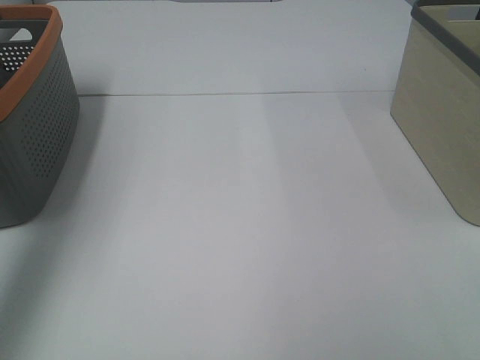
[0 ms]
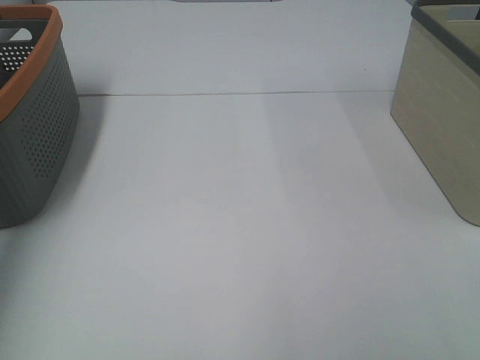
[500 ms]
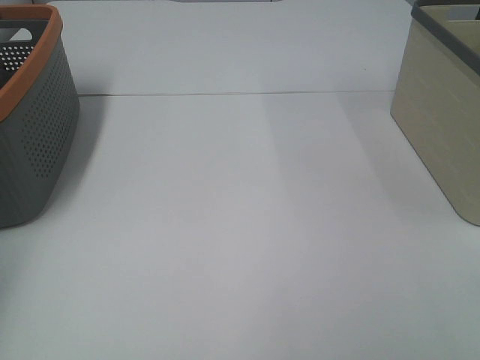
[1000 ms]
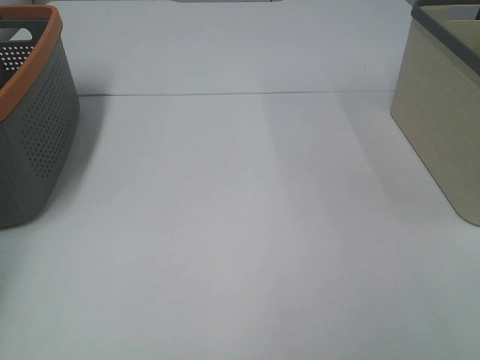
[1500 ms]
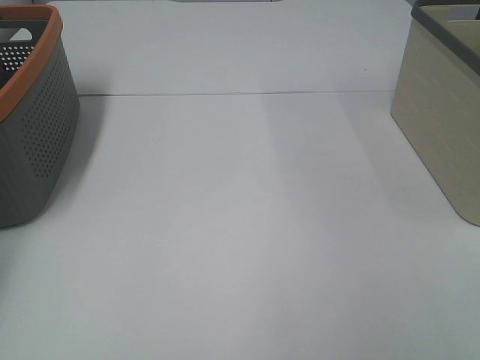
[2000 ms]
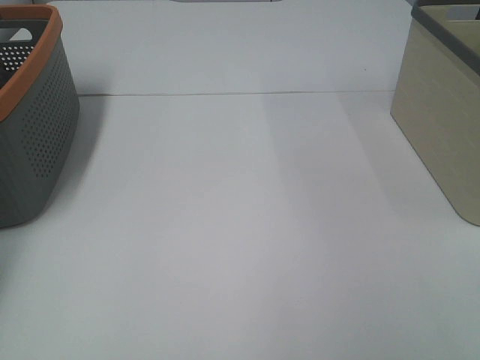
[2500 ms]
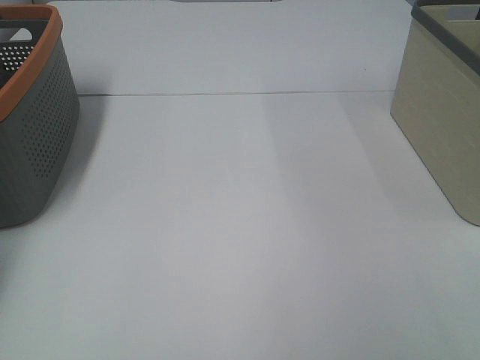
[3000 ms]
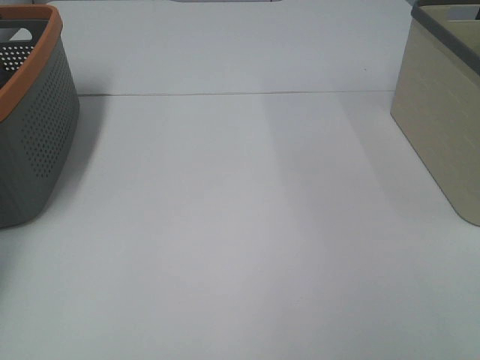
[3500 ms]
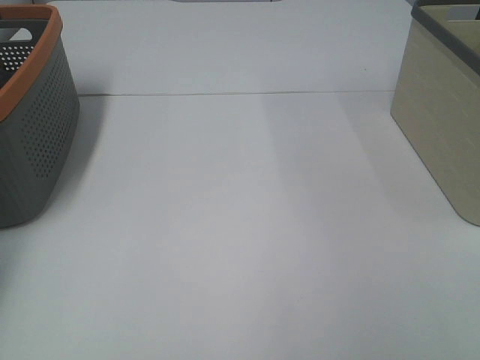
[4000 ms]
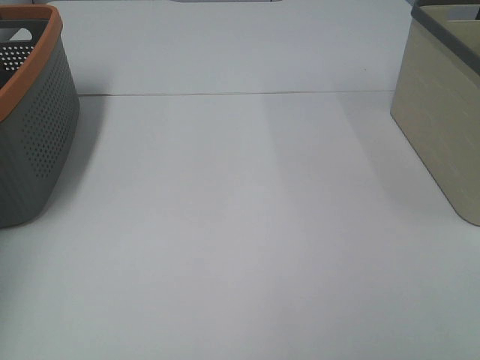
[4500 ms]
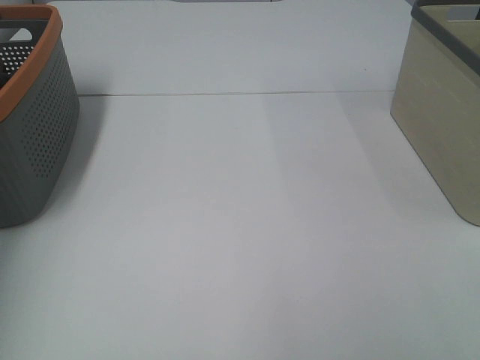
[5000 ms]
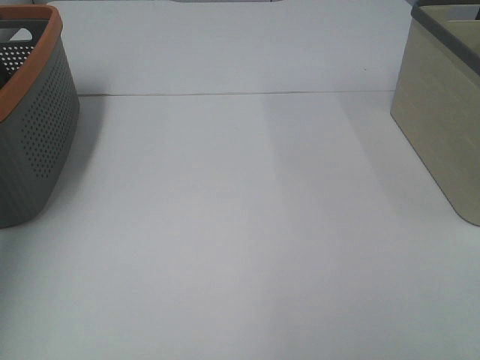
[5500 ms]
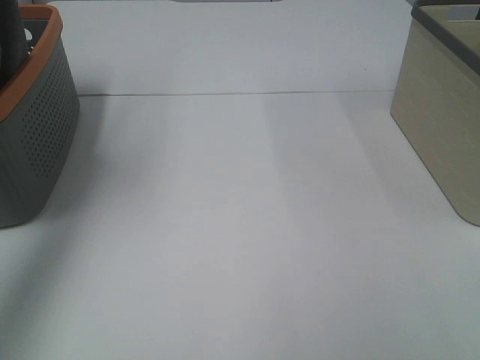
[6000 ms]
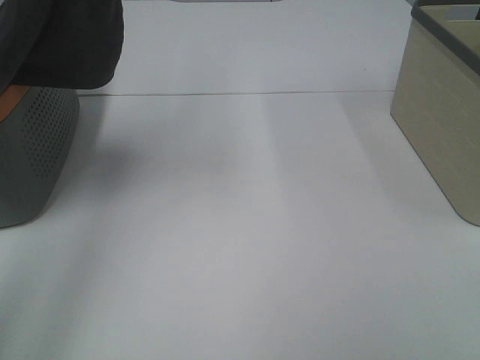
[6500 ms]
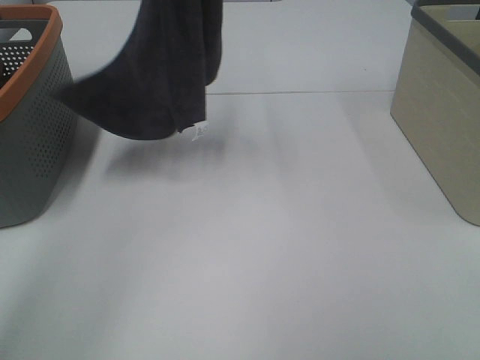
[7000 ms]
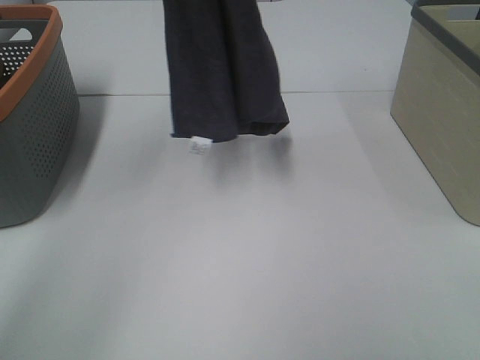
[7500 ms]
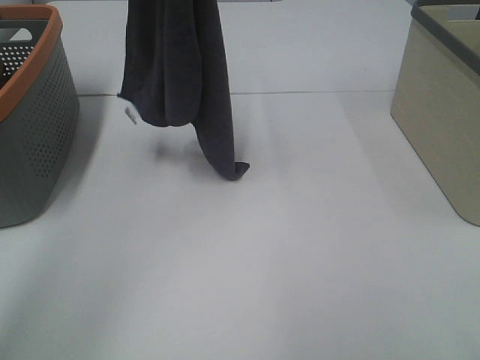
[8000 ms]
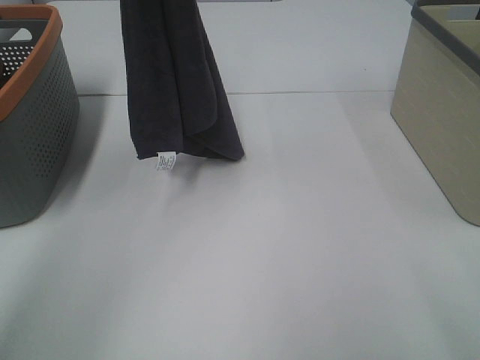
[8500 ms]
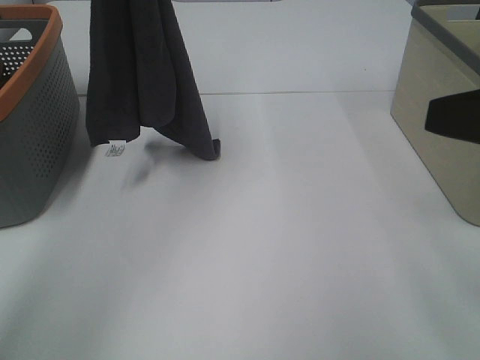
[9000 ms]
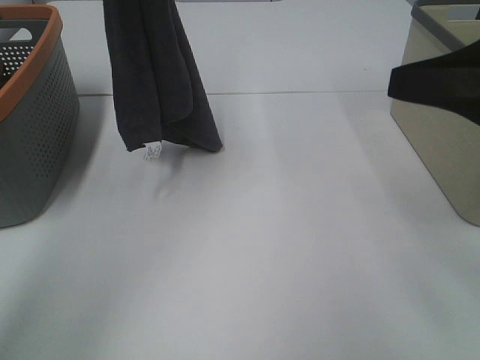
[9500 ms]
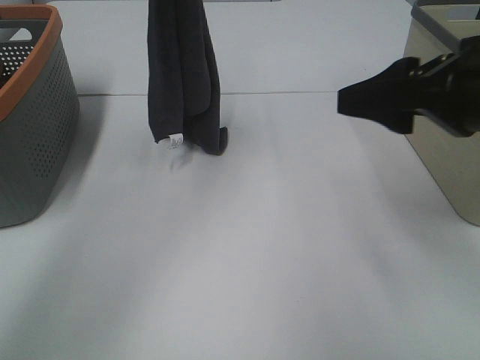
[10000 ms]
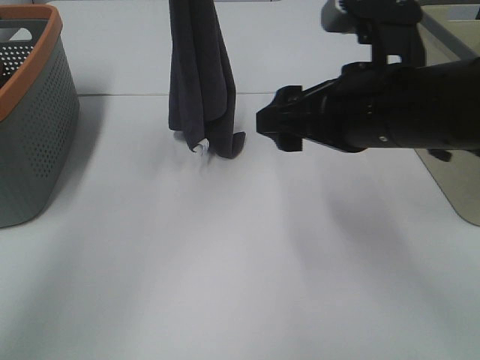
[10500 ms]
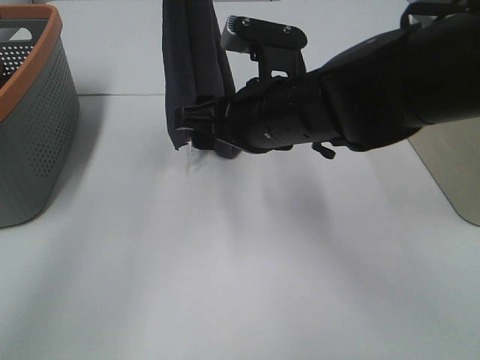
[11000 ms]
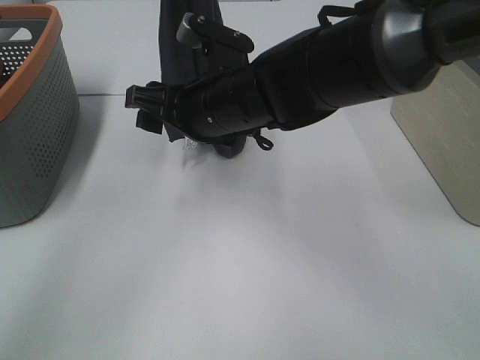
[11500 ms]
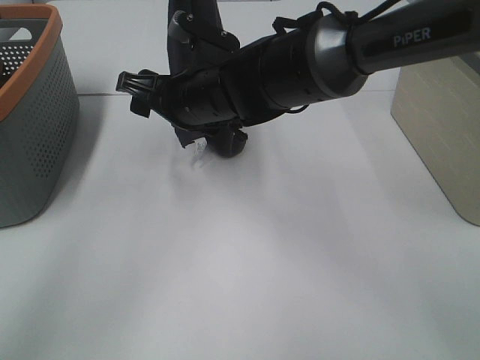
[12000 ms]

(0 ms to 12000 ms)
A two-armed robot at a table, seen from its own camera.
Task of the whole recording: Remove the towel and place it.
0 ms - 2000 ms: The left gripper goes roughly 30 cm forward, downward and to the left.
4000 ms - 6000 ms: The left gripper travels upward, to the right and backward by approximately 35 cm.
6000 ms - 8000 ms: The left gripper is displaced to the right and forward by some 20 cm.
8000 ms - 10000 ms: The left gripper moves some 5 cm; the right gripper is displaced forward by approximately 20 cm.
10000 ms - 12000 ms: The right gripper heads to the left and forward, covering some 25 cm.

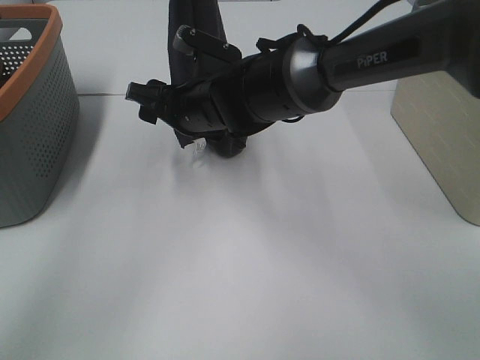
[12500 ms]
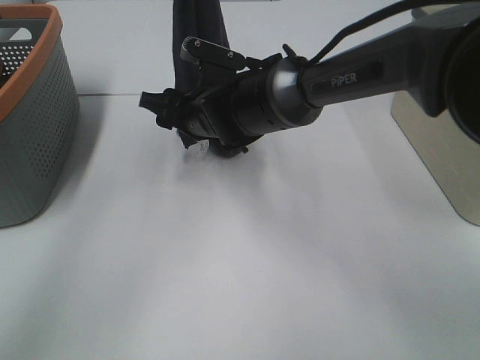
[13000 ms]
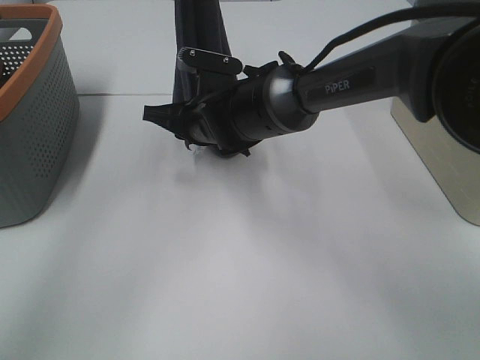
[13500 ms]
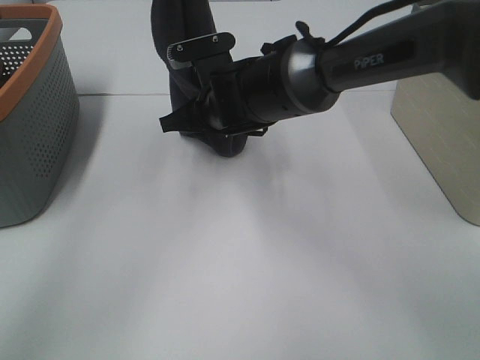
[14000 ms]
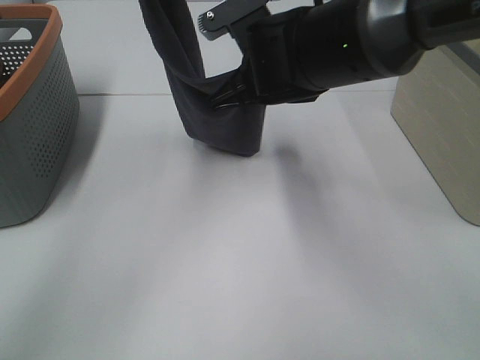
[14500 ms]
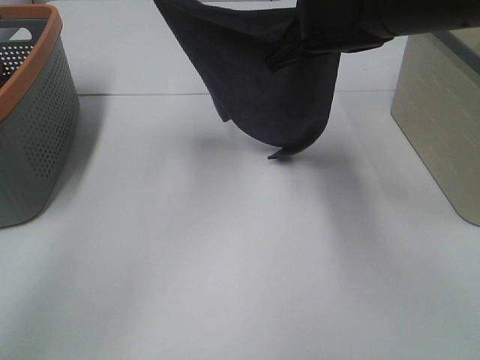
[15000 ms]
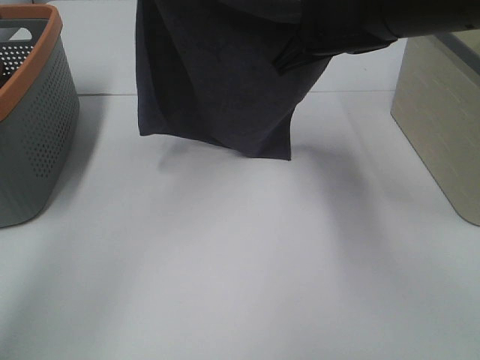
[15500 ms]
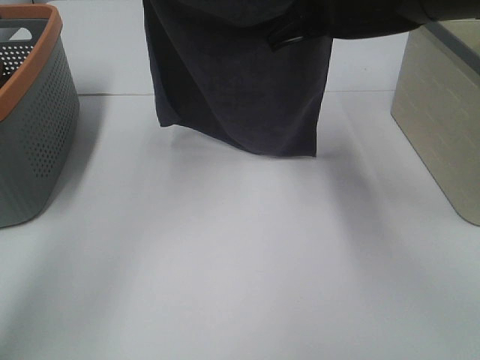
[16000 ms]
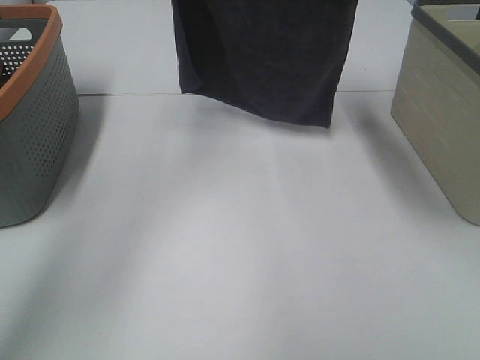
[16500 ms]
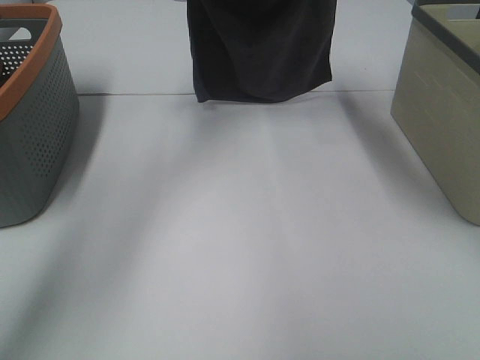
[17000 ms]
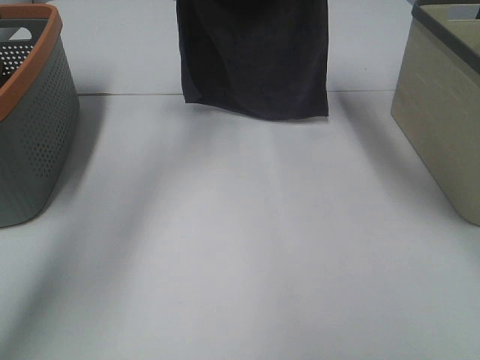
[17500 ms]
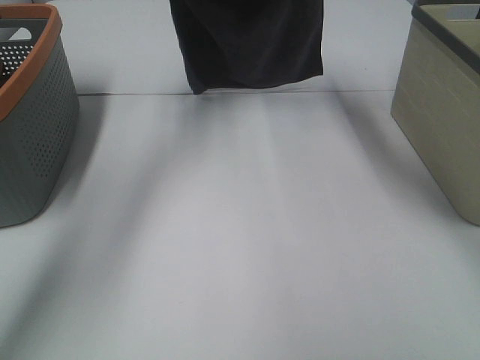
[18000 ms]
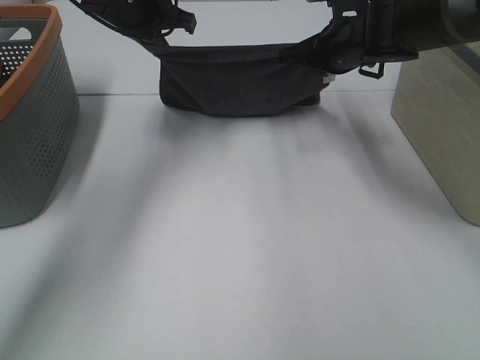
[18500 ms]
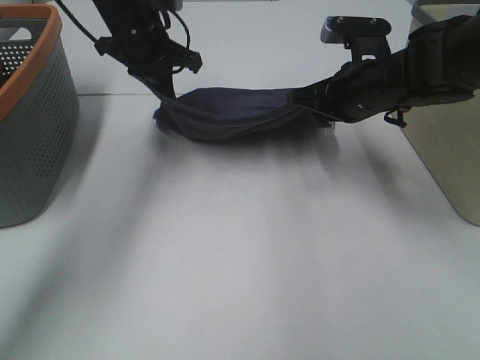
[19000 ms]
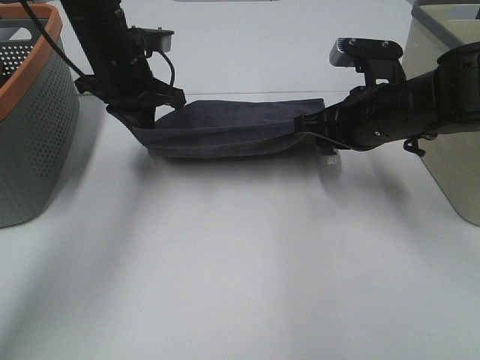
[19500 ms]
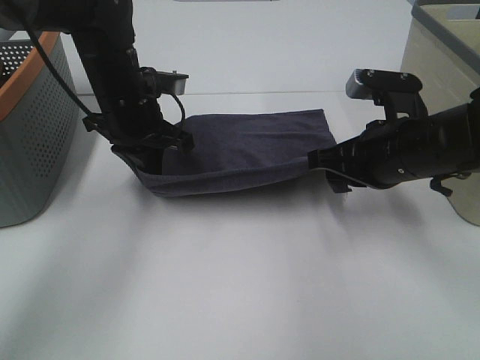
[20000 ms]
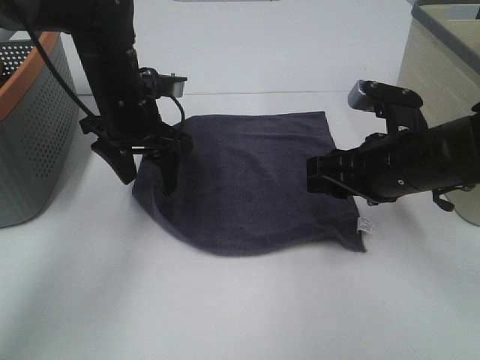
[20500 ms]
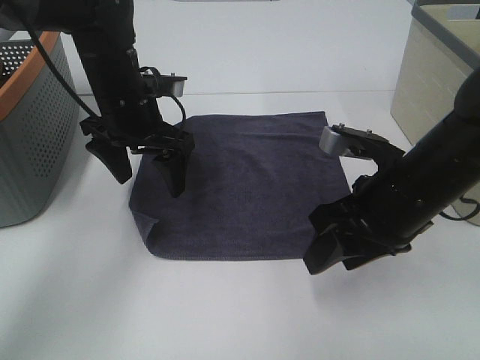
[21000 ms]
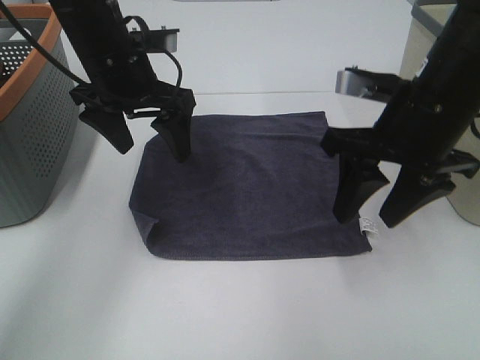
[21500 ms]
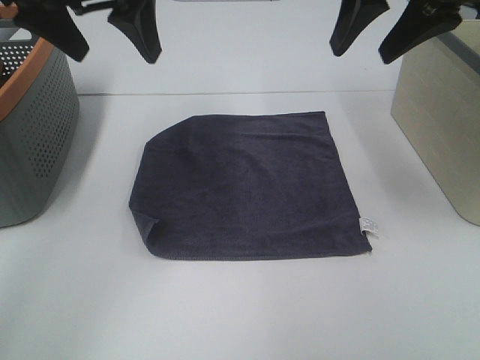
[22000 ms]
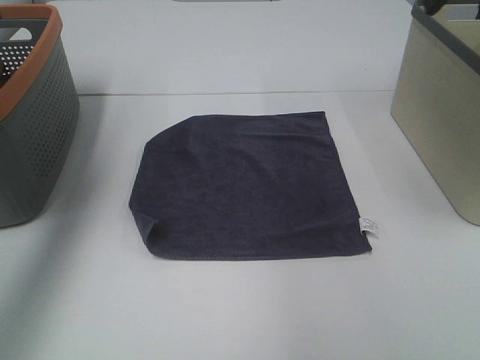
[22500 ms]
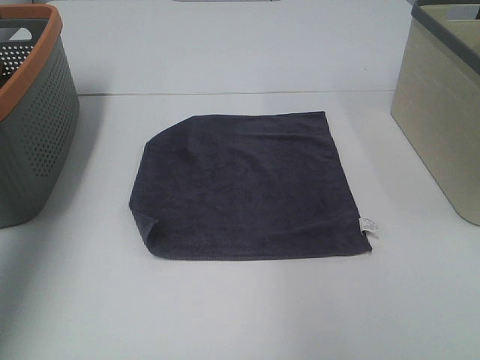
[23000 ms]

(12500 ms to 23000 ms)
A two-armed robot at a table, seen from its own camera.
Task of the whole recording: Remove the towel and place it.
Step, 12500 ms - 15500 ms: Left hand: spread the grey towel flat on the table.
Step, 12500 ms - 15500 ms: Right hand: spread the grey towel flat on the table.
12500 ms - 14500 ms: The right gripper moves to the right and upward, approximately 10 cm, and closes up.
14500 ms - 16500 ms: The left gripper travels forward by approximately 5 cm. Meanwhile the right gripper heads to the right, upward and forward, covering about 15 cm.
16500 ms - 19000 ms: Both grippers travel together downward, some 15 cm.
19000 ms - 21000 ms: The grippers both shift backward by some 10 cm. The left gripper opens up; the right gripper opens.
21000 ms - 23000 ms: The right gripper heads upward and to the right, covering about 25 cm. Meanwhile the left gripper shifts roughly 35 cm upward, to the left and backward.

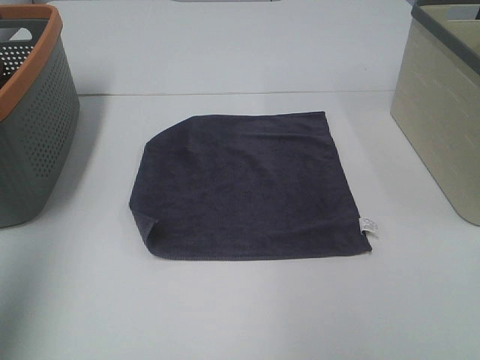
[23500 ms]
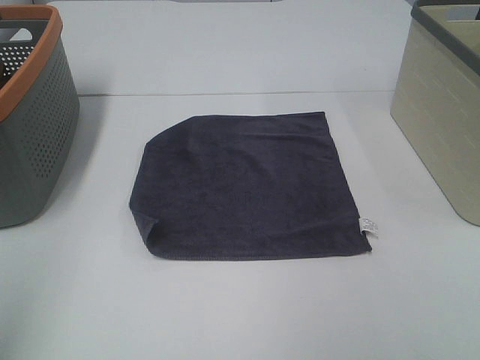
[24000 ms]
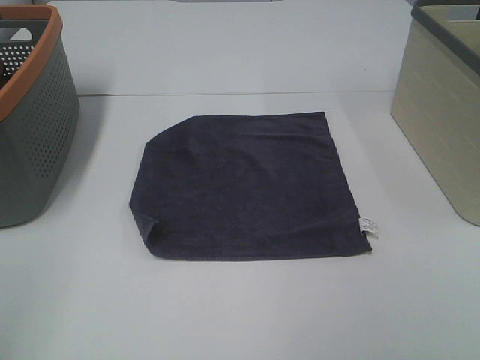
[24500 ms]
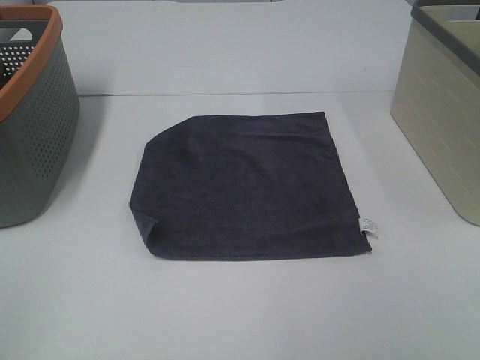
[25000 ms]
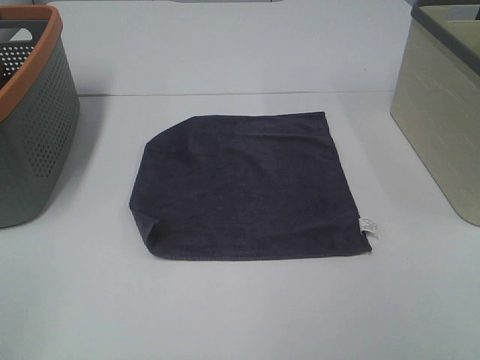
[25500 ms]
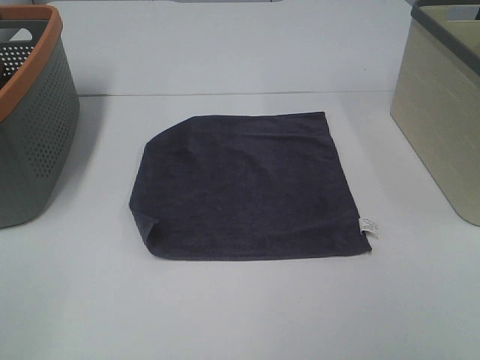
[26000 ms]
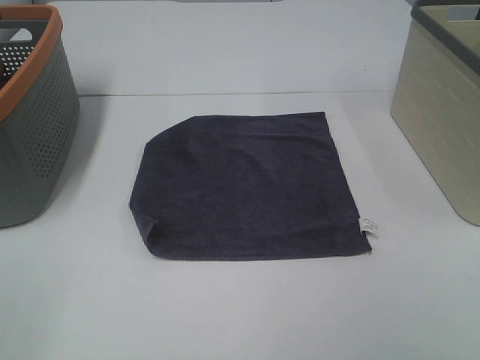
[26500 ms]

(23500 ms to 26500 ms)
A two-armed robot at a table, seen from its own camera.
Task of the whole recording: Remove the towel and place it.
23500 ms - 25000 ms: The left gripper heads backward and downward, covering approximately 20 cm.
